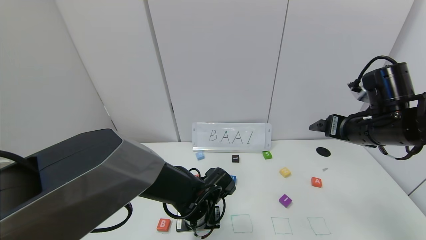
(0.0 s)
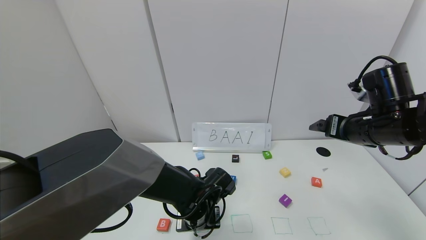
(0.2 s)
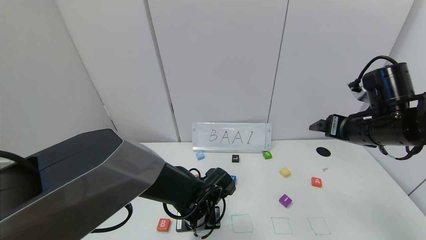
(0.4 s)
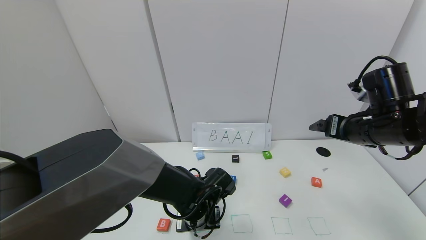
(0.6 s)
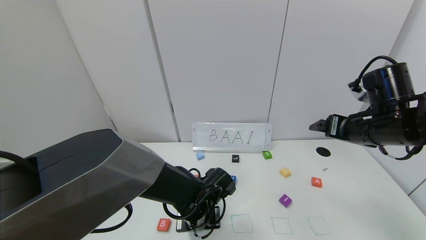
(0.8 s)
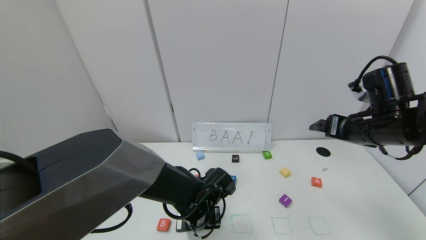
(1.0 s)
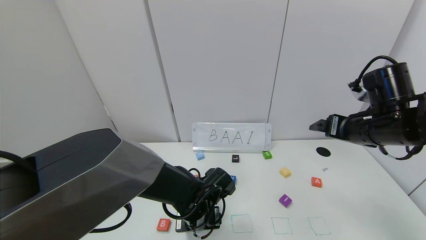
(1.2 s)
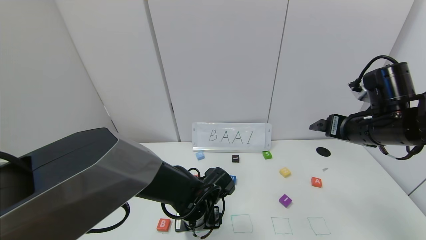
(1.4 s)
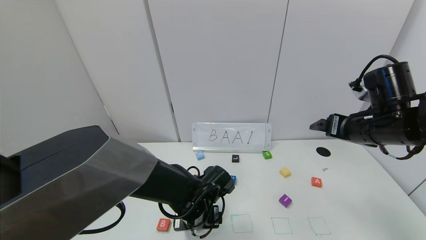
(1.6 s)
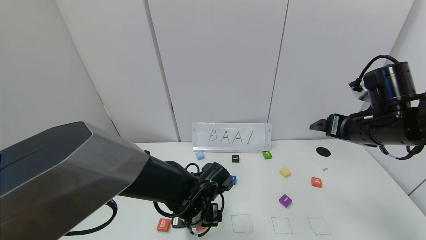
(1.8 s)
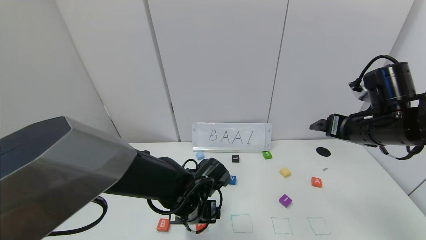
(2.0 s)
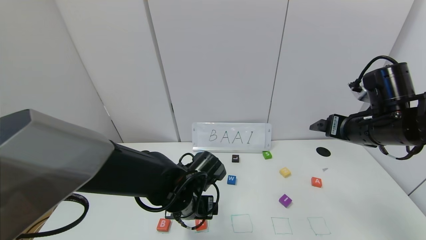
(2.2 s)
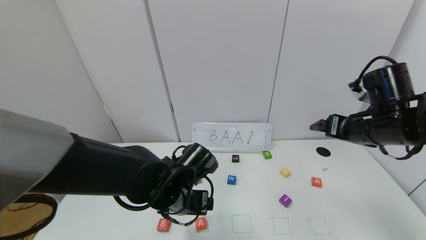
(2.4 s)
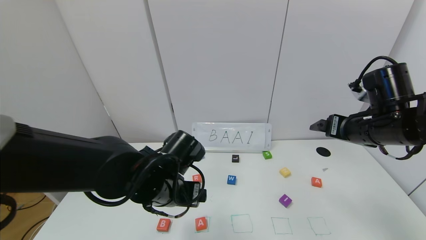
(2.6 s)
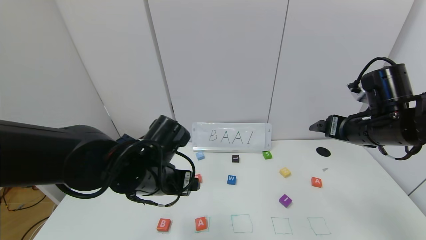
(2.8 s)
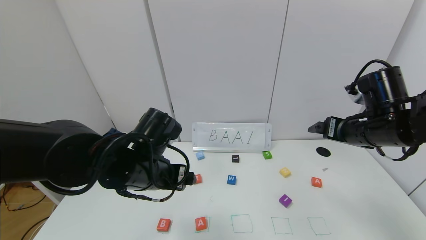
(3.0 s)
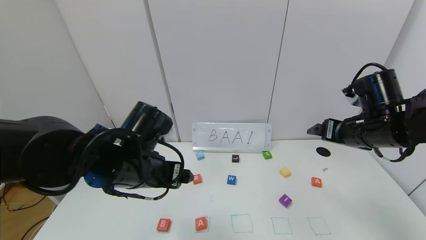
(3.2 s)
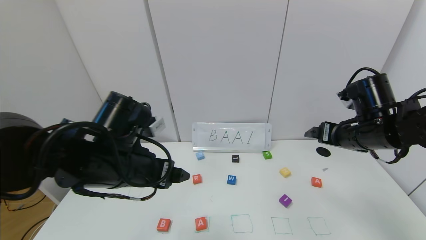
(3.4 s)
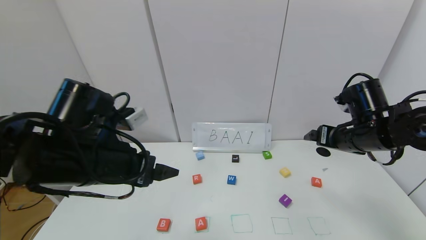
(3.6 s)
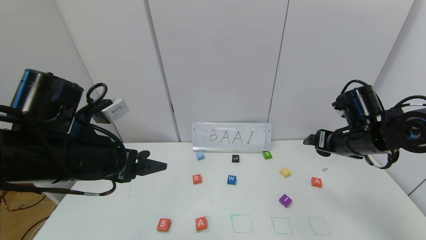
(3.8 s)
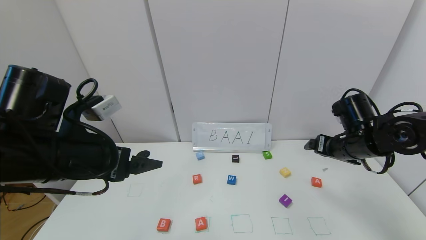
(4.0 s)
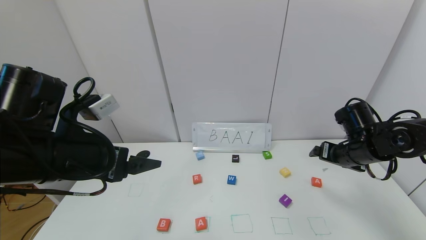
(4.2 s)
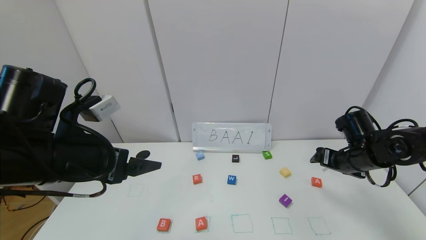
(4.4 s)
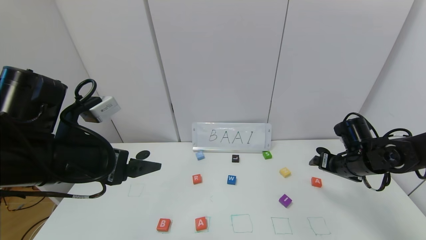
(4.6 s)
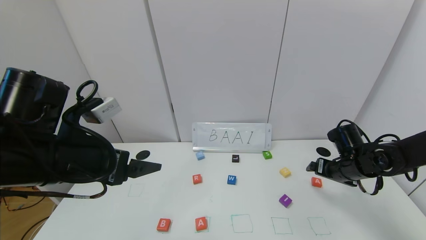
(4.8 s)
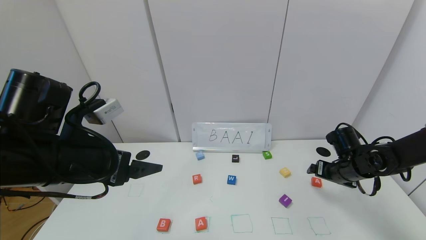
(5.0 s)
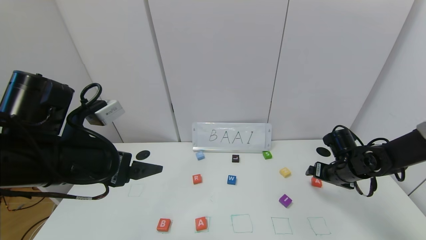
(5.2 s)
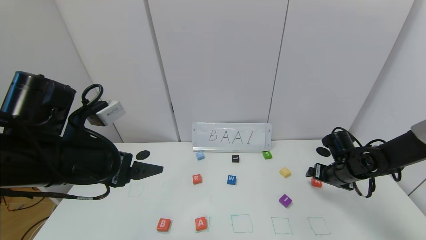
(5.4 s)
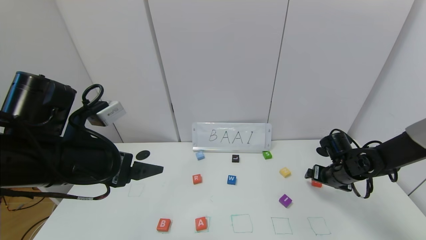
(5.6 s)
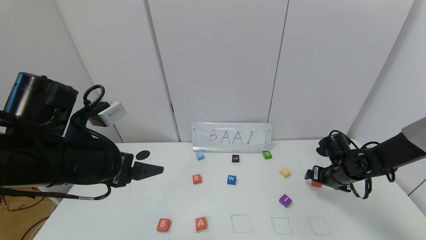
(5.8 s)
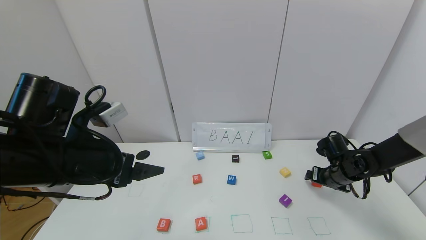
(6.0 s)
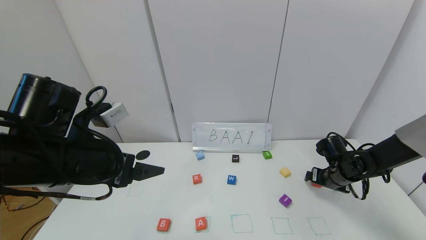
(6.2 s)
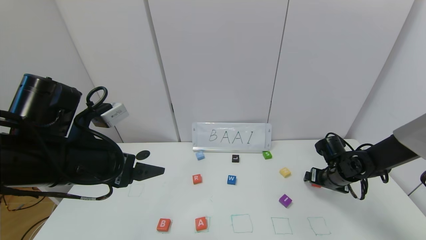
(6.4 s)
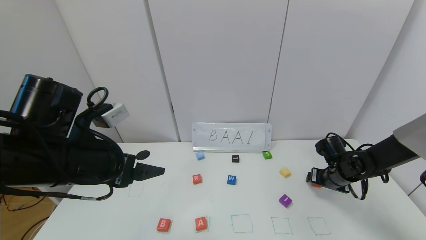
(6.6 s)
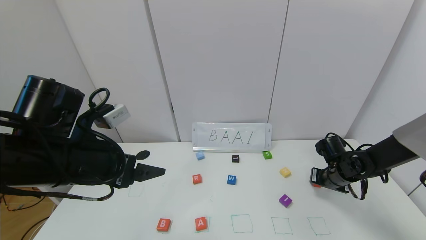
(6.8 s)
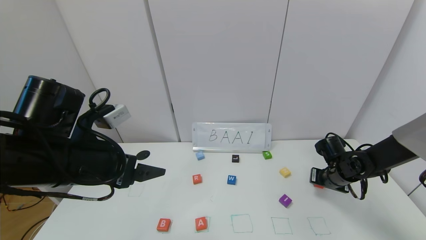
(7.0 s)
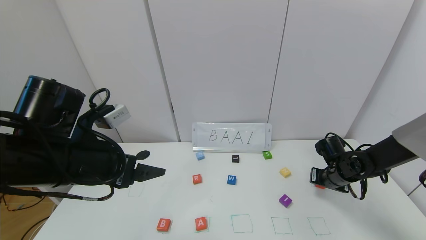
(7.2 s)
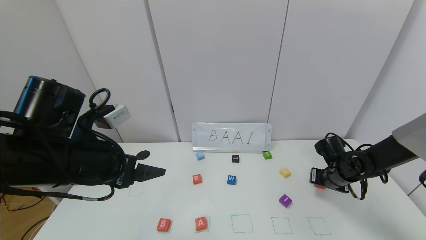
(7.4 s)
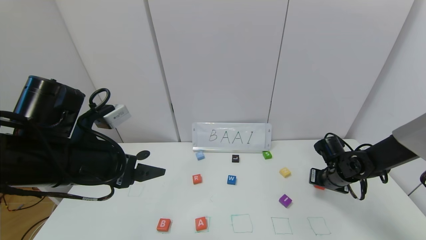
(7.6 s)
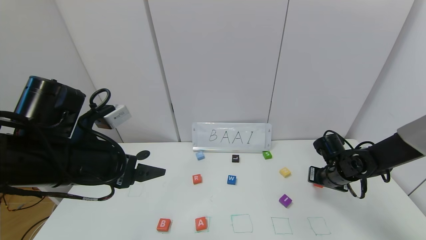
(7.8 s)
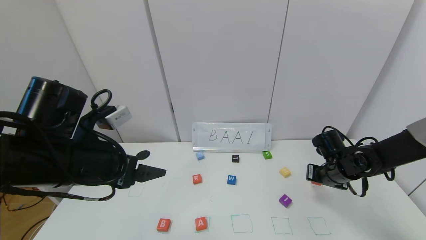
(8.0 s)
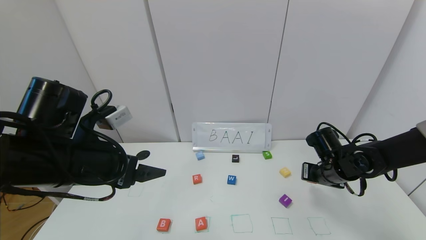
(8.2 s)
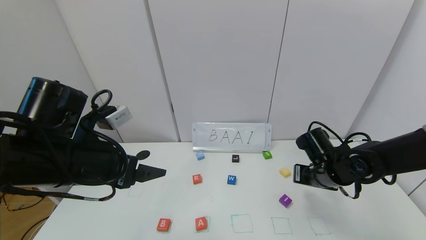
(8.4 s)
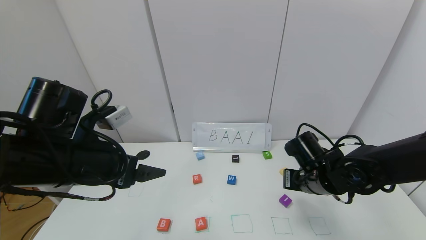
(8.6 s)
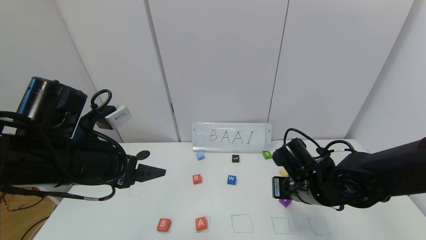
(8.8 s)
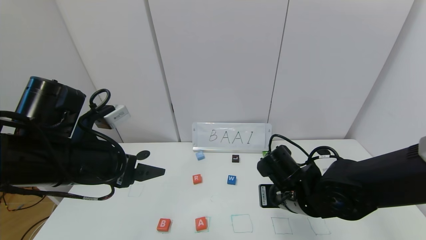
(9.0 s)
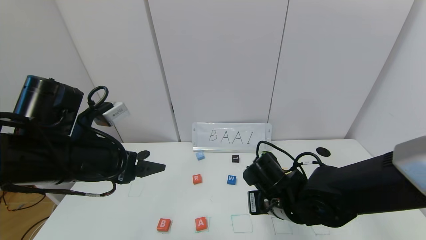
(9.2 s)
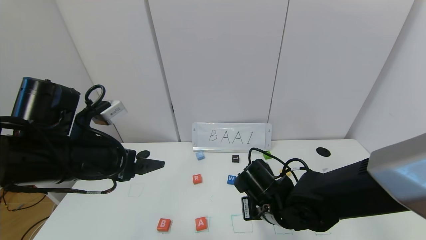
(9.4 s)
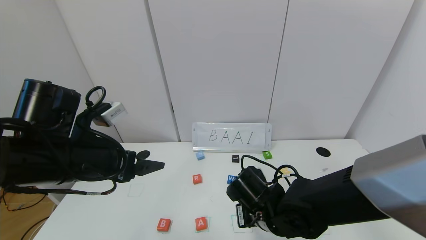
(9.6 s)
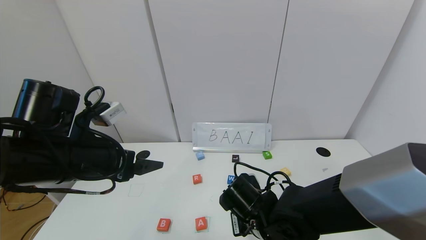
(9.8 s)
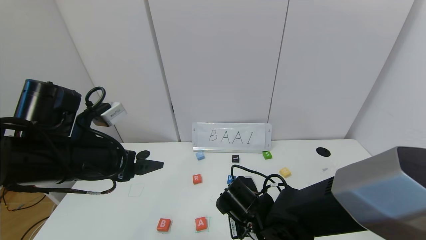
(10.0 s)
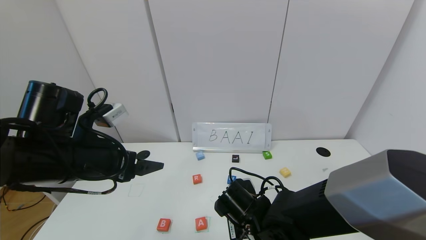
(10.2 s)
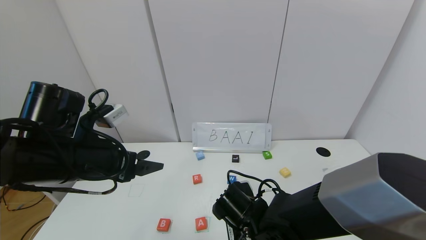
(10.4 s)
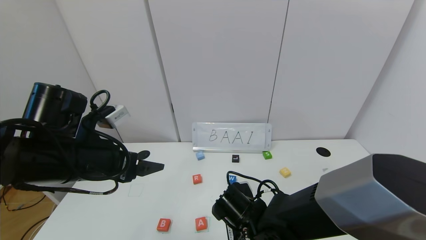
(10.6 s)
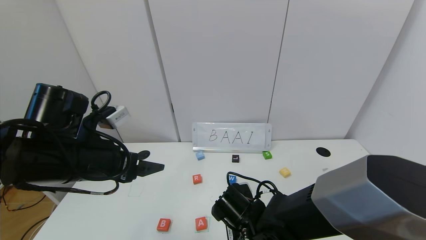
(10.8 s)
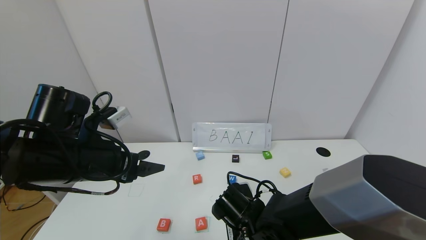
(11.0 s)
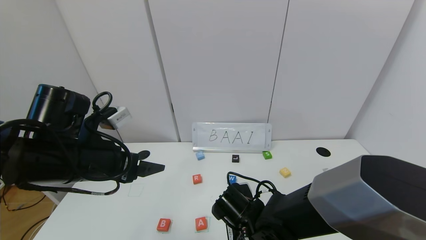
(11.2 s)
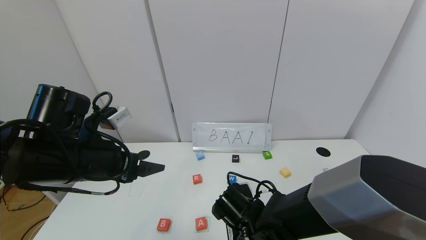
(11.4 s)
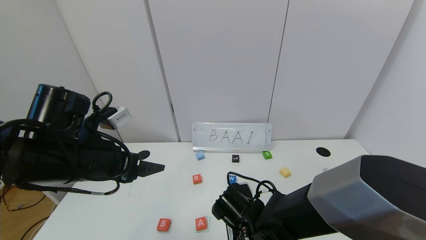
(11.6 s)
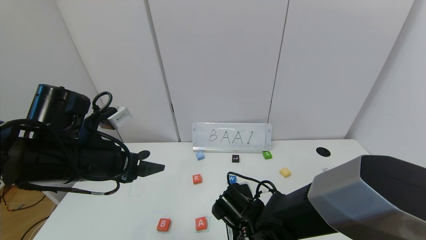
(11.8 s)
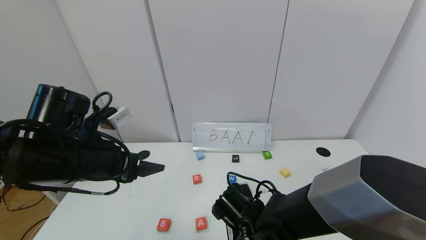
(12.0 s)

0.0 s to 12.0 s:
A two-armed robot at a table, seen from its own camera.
Task of the whole recording: use the gripper to find blocks with the letters b, a, a, and i on the table and arrange them into BAAI, then find r and N and turn the arranged baai into brian.
0.0 to 1.6 s: The left gripper opens up.
1.6 to 3.0 s: The left gripper moves upward and to the left, some 15 cm.
3.0 to 4.4 s: The right gripper goes some 10 cm downward. Meanwhile the left gripper goes approximately 10 cm to the left and upward.
4.4 to 6.0 s: The right gripper is displaced downward by about 10 cm.
6.0 to 7.6 s: The right gripper closes.
7.6 to 9.0 s: The right gripper moves to the left and backward, roughly 20 cm.
9.0 to 10.4 s: The right gripper travels to the left and downward by some 10 cm.
10.4 to 12.0 s: The right gripper opens up.
